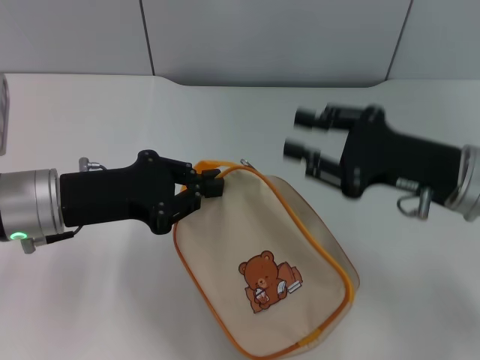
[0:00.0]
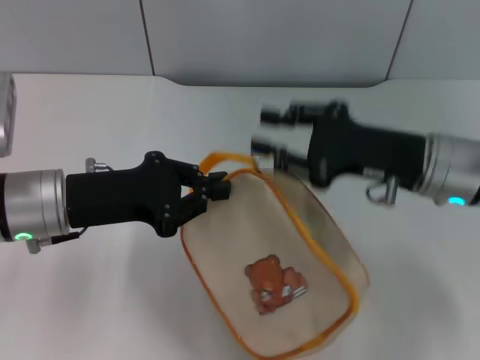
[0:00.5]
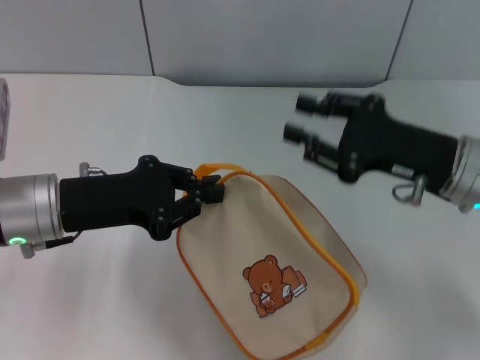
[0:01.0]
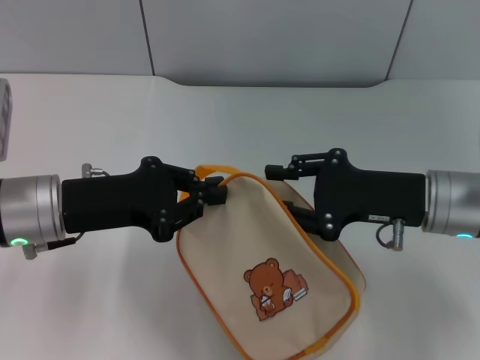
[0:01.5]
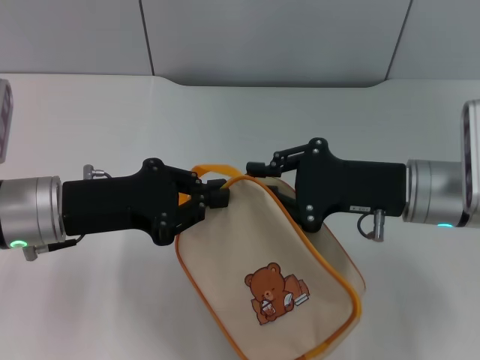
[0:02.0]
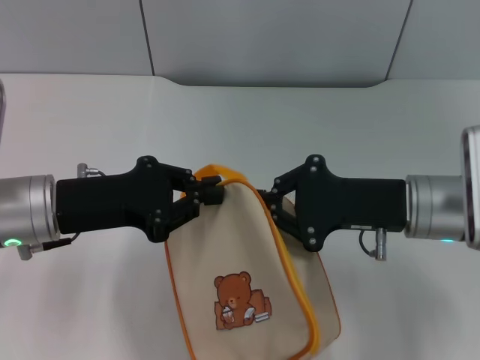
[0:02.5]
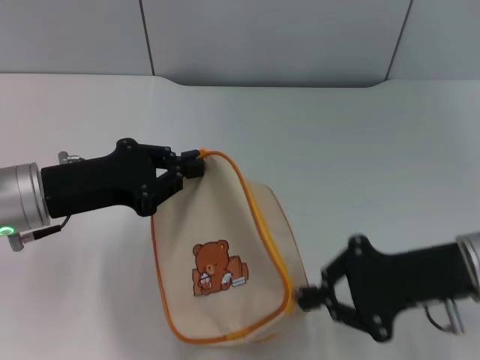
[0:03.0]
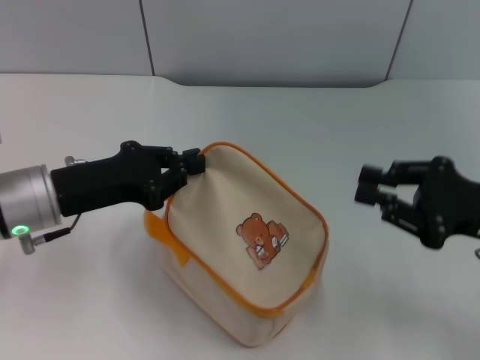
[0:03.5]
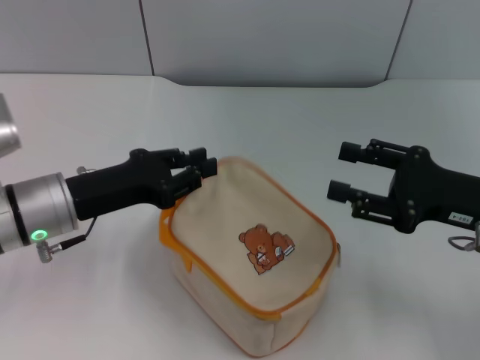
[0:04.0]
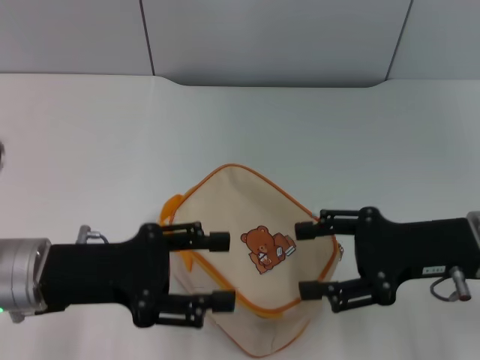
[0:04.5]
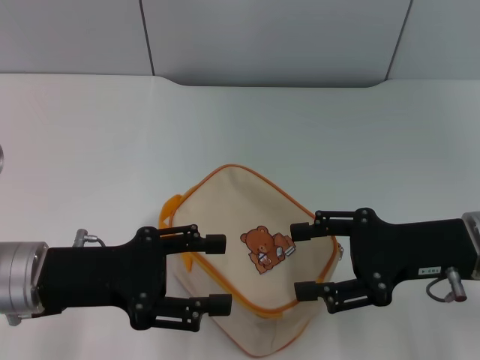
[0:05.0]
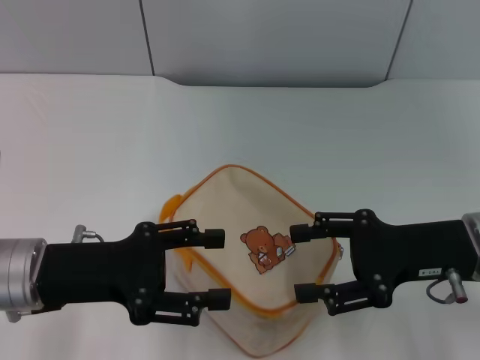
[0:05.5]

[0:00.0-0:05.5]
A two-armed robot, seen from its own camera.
Step, 0:00.0 to 0:03.0: Unzip the zipper of bag with right gripper.
0:00.0 to 0:02.0: The grippers move only a little.
0:02.0 to 0:03.5: The right gripper moves to the right and backward, roughly 10 cm.
0:03.5 to 0:05.5: The right gripper is displaced to the left by about 5 cm, and opens up. Meanwhile the left gripper travels backward by about 5 cm, and opens.

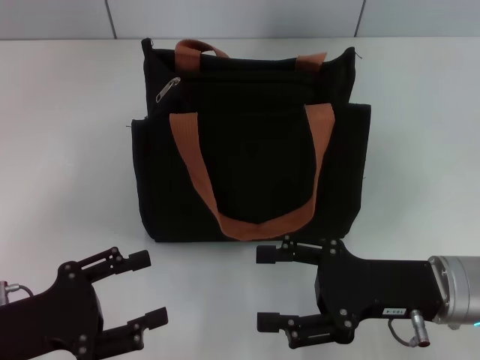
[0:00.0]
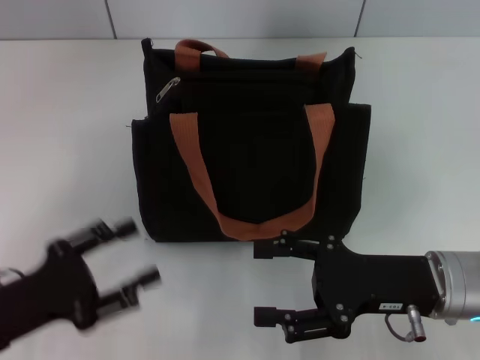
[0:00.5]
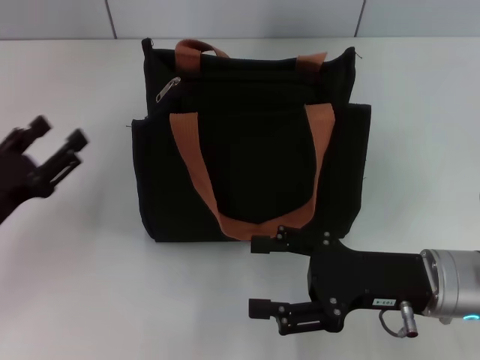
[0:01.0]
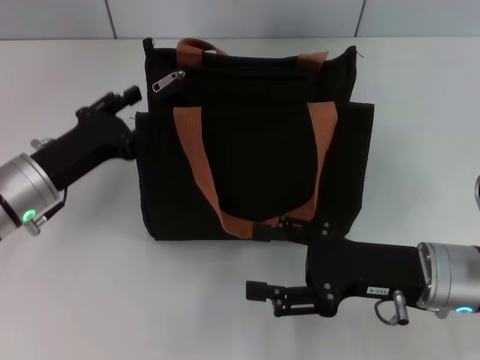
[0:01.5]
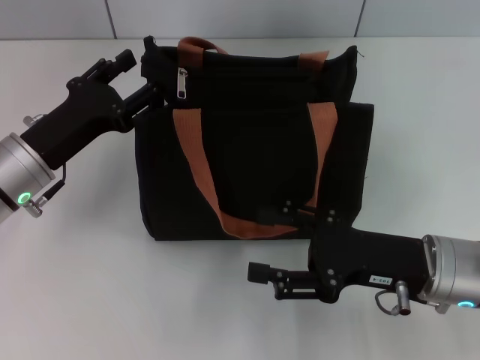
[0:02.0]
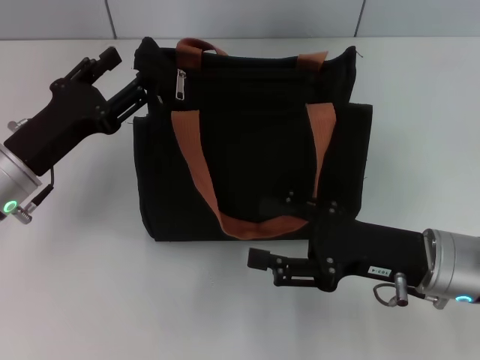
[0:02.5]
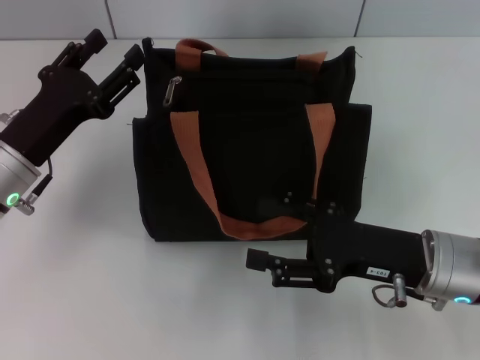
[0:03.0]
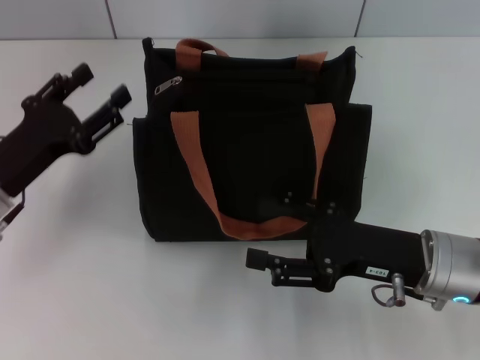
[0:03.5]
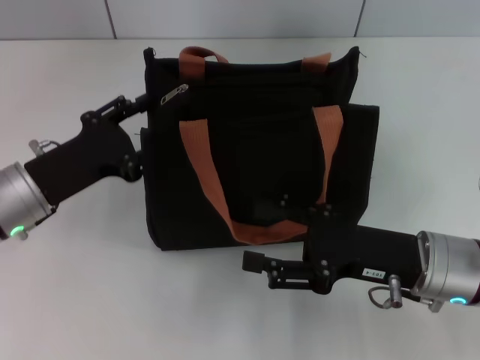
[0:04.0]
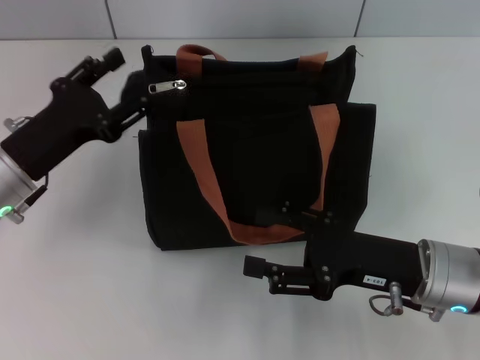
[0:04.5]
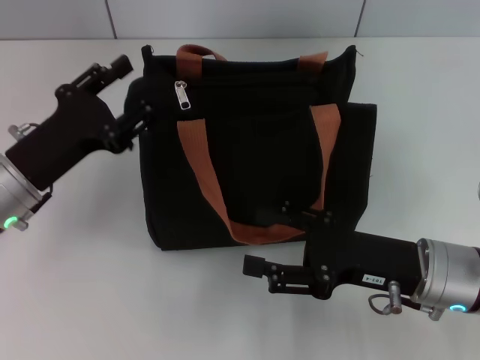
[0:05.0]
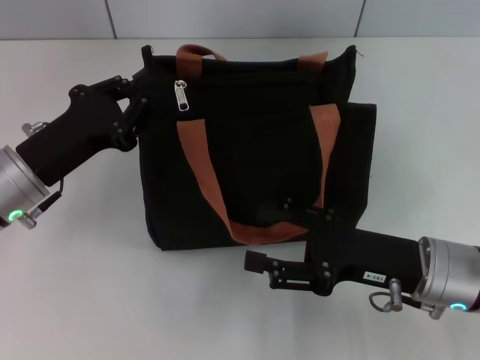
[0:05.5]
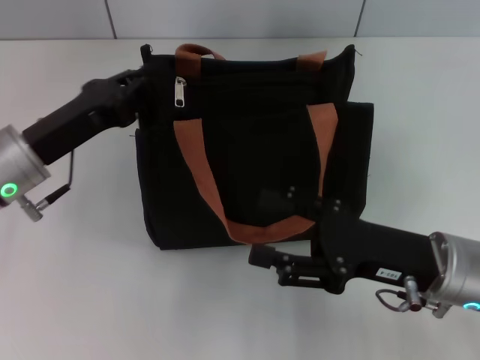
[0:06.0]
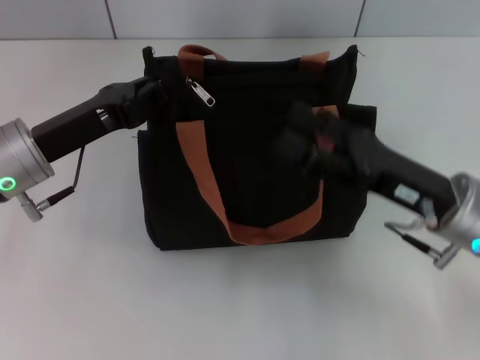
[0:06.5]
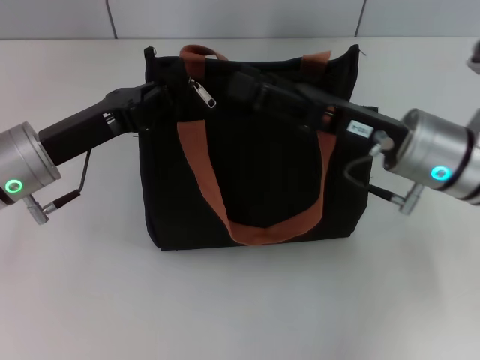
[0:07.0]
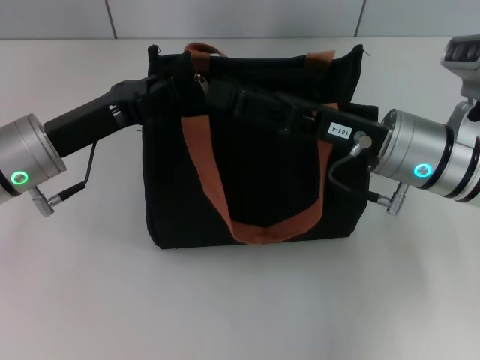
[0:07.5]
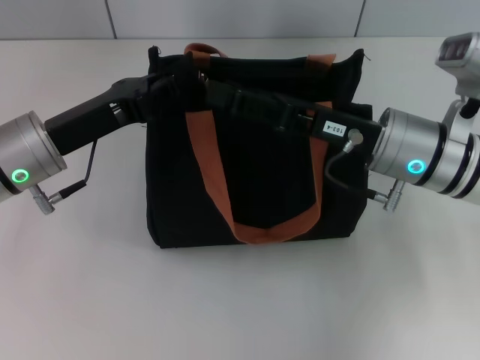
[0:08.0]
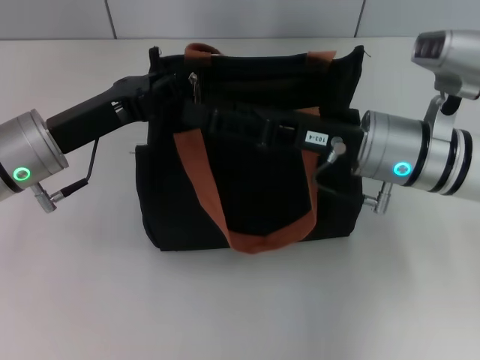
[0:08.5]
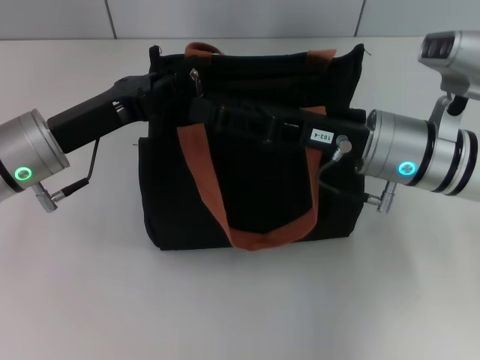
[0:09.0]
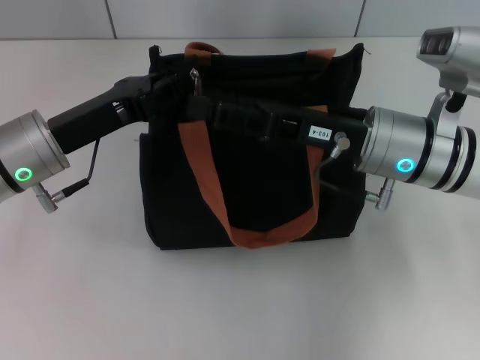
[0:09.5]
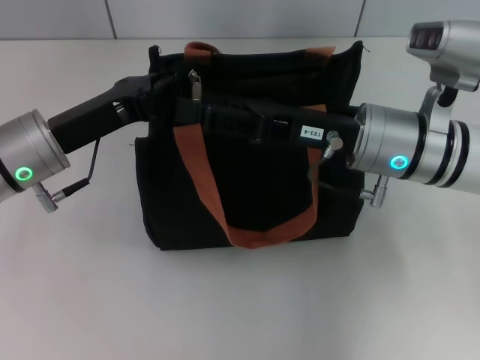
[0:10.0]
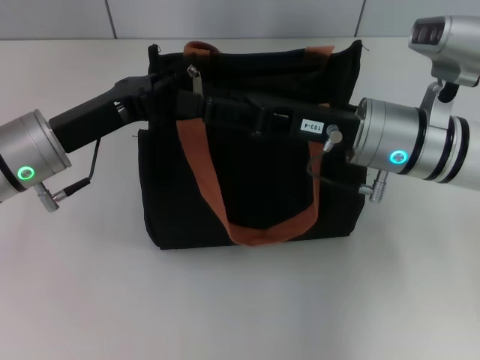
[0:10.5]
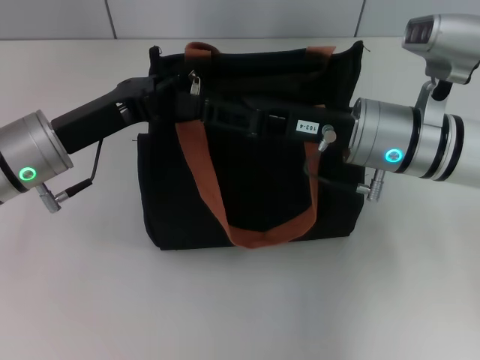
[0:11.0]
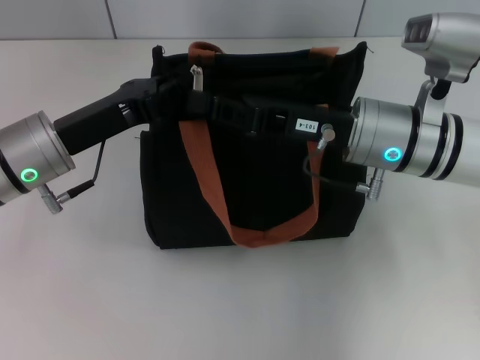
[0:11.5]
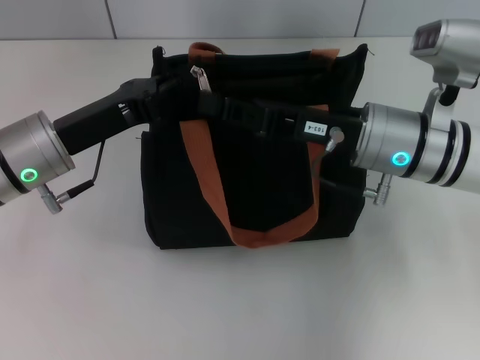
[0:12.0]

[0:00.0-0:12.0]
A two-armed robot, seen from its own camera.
0:00.0 to 0:02.0: The left gripper goes some 15 cm forward.
0:02.0 to 0:04.0: The grippers make only small movements.
0:04.0 to 0:06.0: The left gripper closes its fingers.
0:06.0 to 0:08.0: The right gripper goes approximately 10 cm forward.
0:08.0 to 0:10.0: The grippers move only a little.
0:10.0 to 0:12.0: The right gripper closes up.

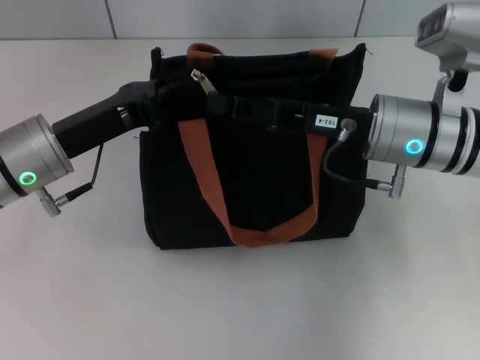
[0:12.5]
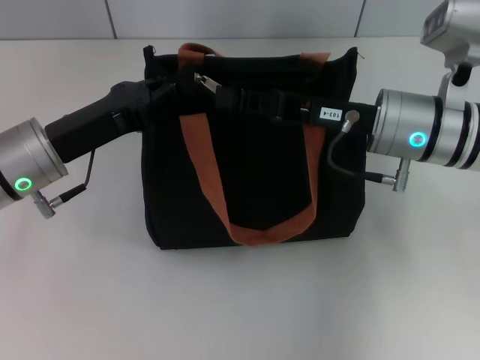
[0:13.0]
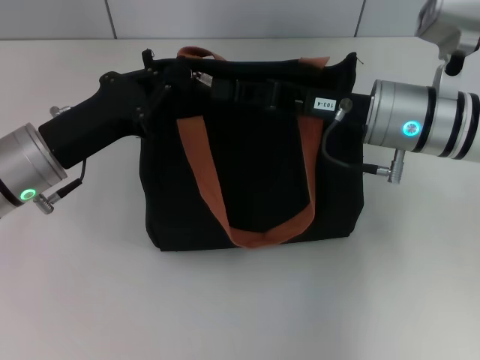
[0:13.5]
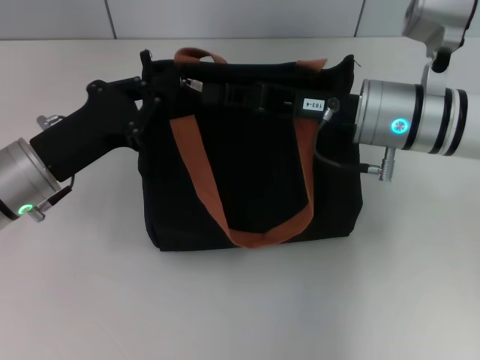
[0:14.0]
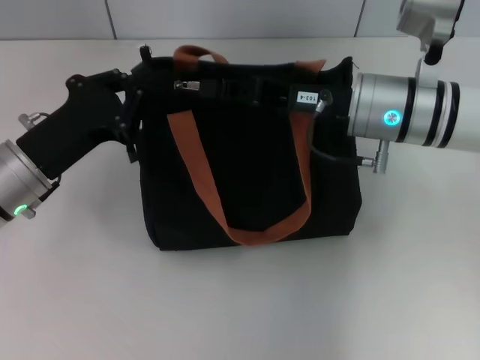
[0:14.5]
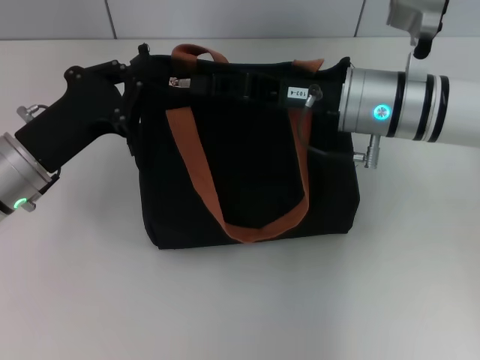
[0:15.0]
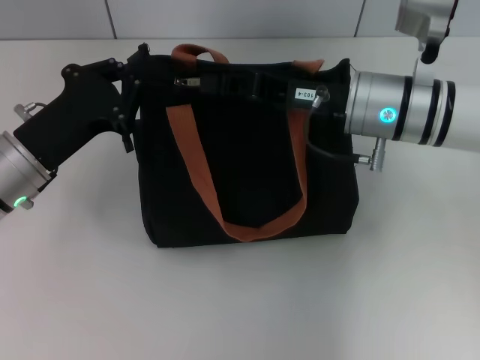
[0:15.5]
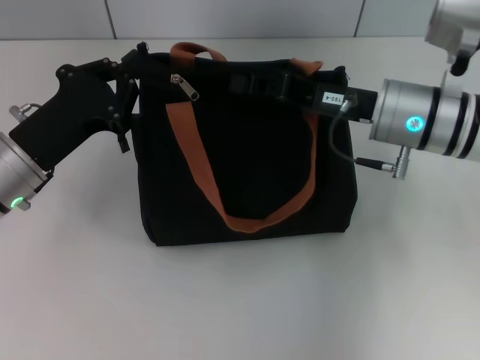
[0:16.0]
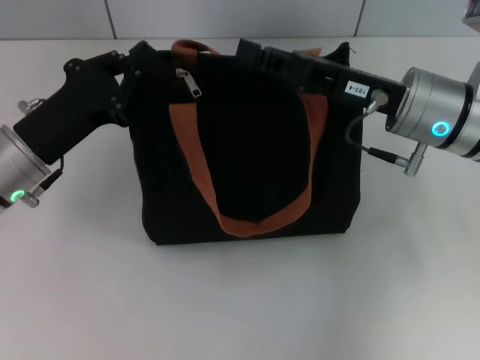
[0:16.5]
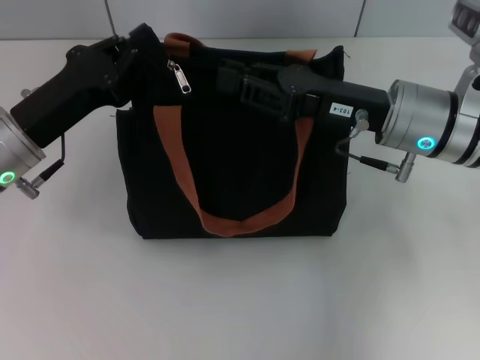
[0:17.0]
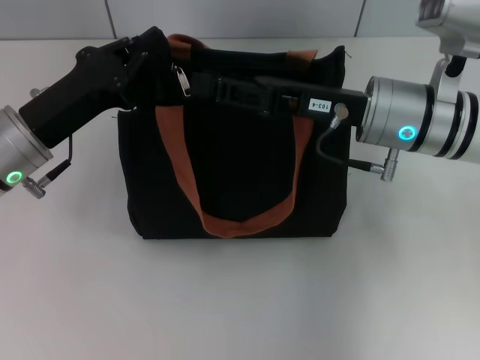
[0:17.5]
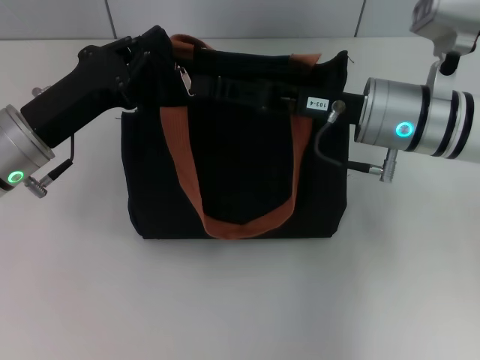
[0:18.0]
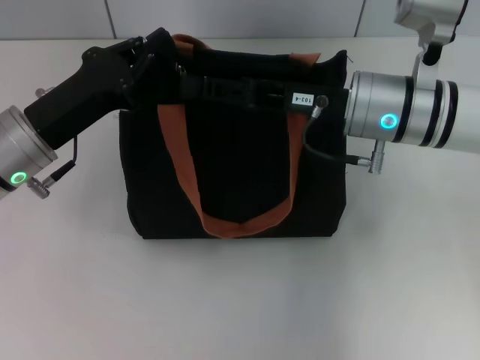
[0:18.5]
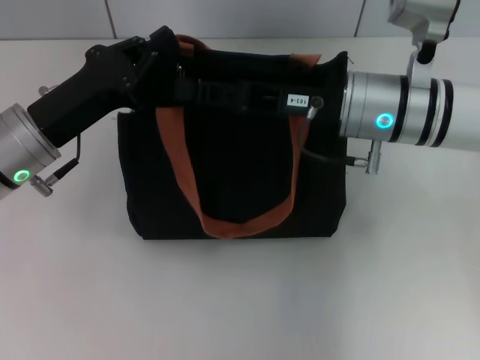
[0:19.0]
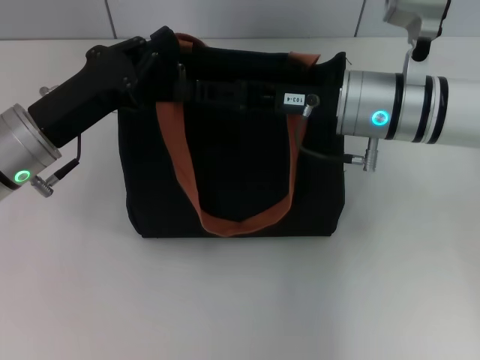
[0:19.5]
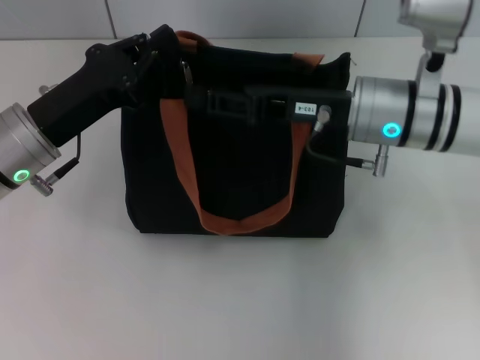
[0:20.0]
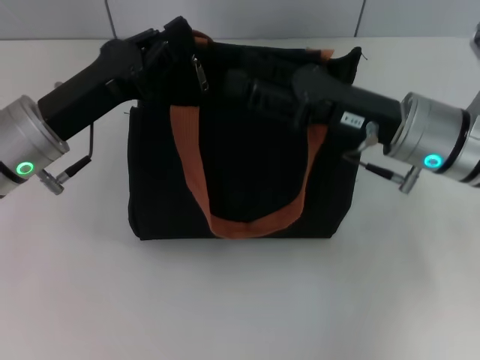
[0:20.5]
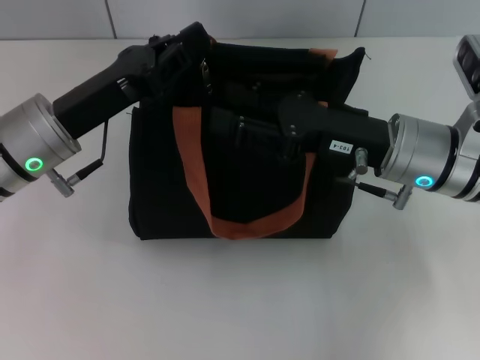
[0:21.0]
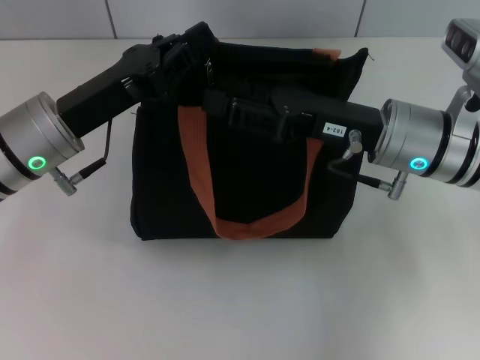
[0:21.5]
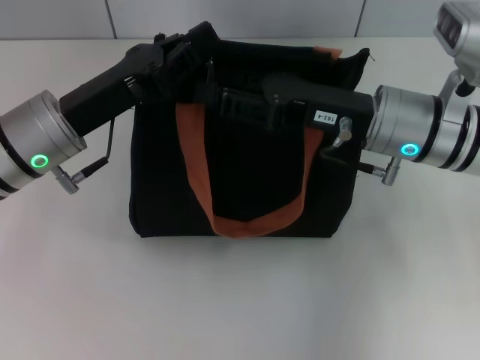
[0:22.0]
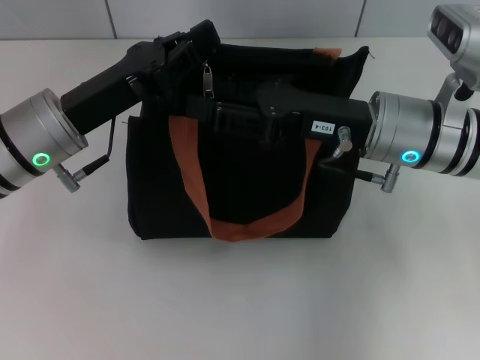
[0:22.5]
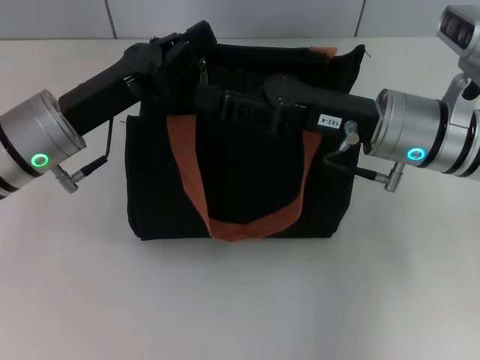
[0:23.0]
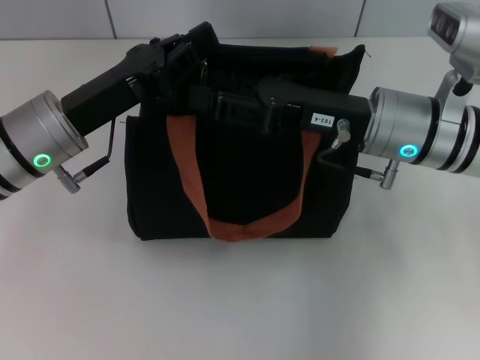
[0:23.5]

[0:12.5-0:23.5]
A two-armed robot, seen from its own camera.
0:14.5 to 0:16.0: There are only small adjustments of the grippers.
0:16.0 to 0:18.0: The right gripper opens up.
0:18.0 to 0:20.0: There are only small adjustments of the grippers.
0:21.5 to 0:23.5: There are only small adjustments of the grippers.
